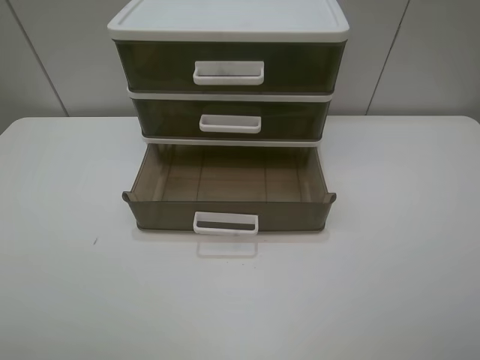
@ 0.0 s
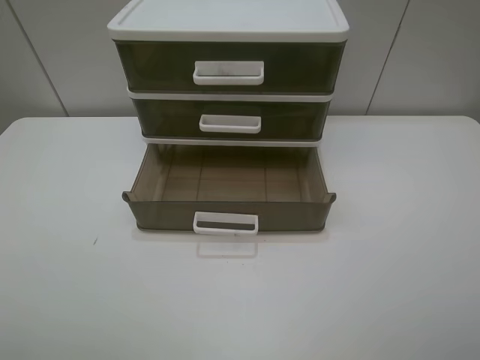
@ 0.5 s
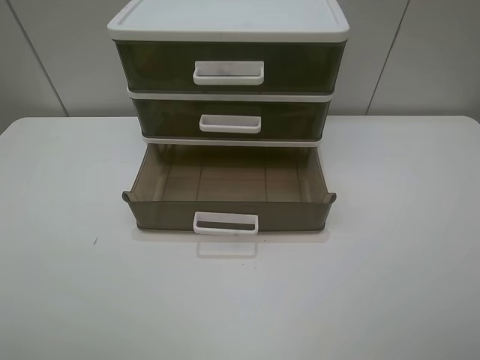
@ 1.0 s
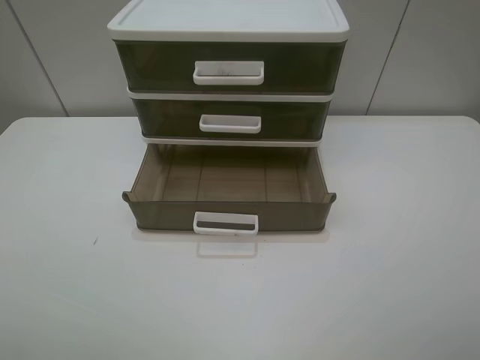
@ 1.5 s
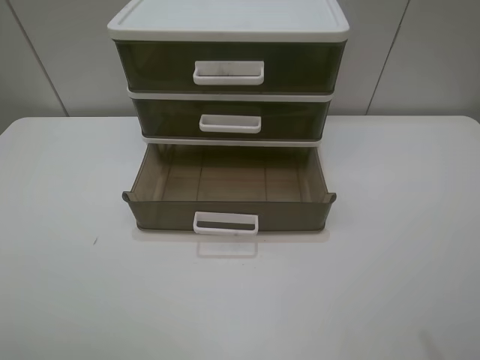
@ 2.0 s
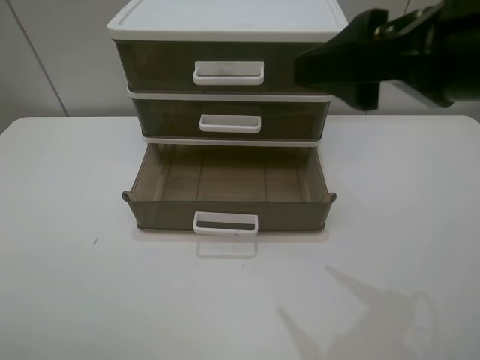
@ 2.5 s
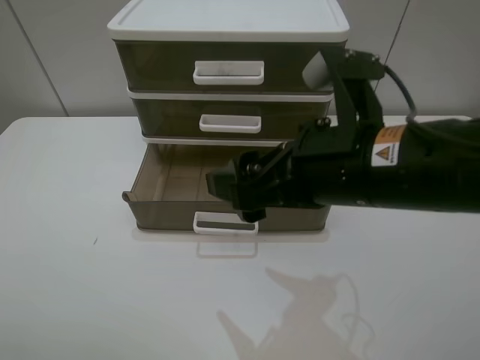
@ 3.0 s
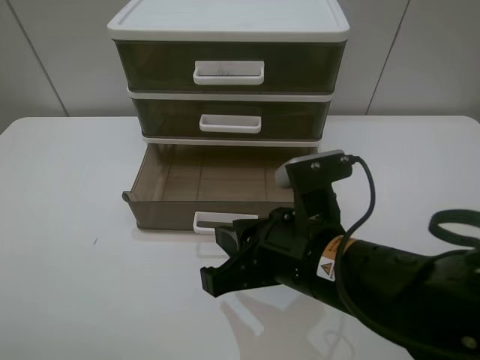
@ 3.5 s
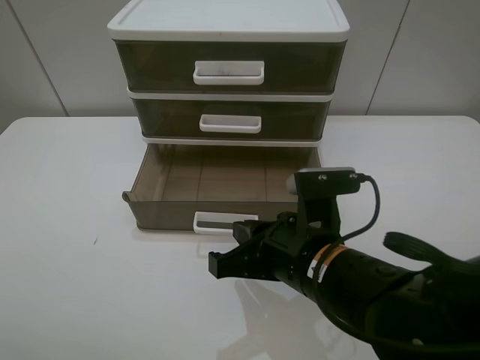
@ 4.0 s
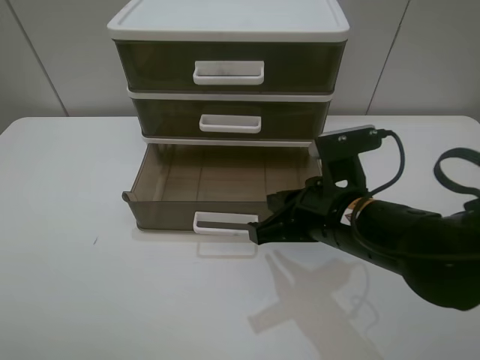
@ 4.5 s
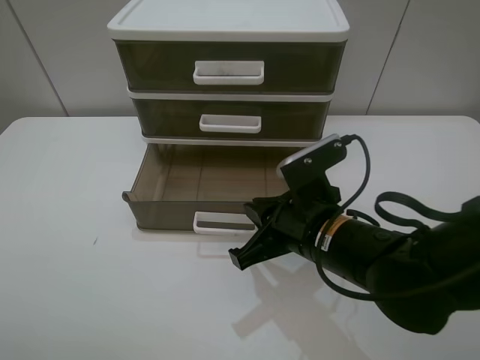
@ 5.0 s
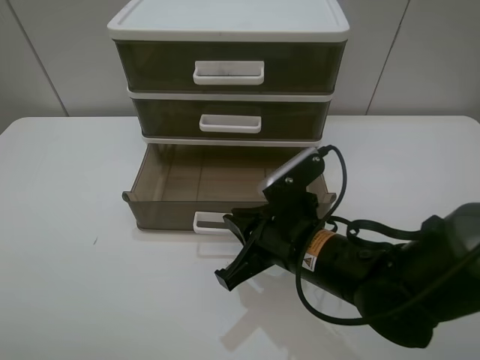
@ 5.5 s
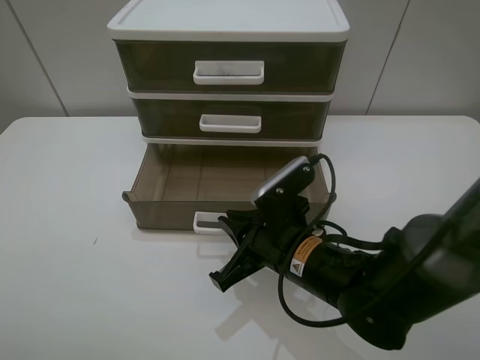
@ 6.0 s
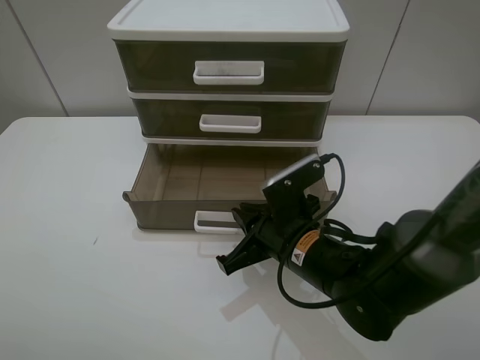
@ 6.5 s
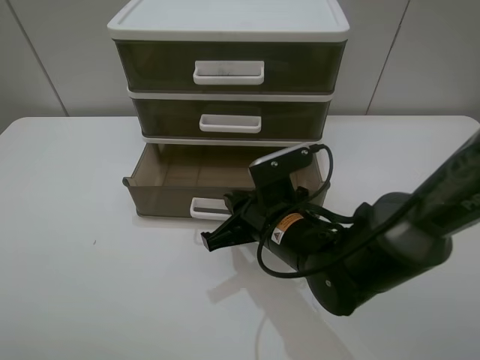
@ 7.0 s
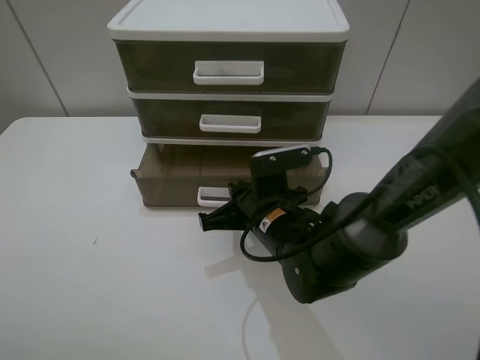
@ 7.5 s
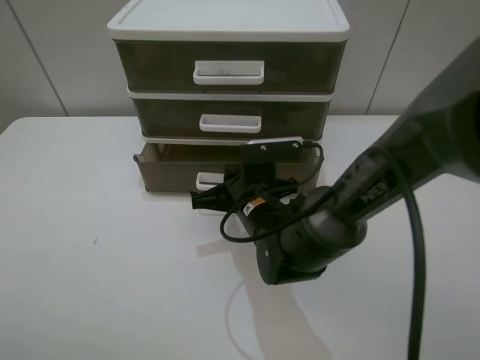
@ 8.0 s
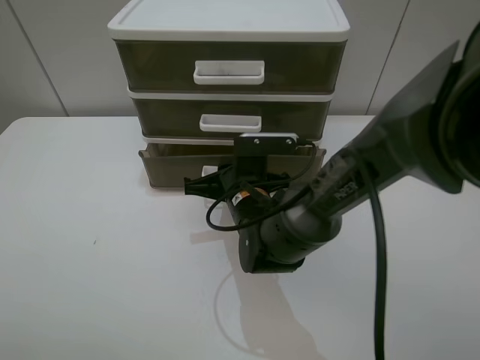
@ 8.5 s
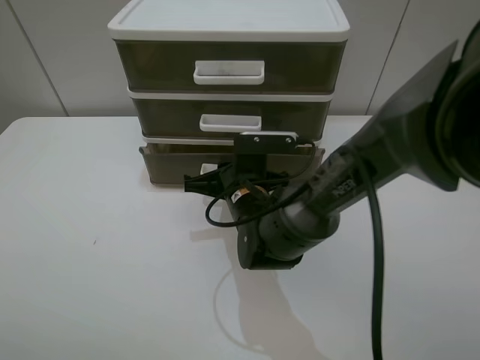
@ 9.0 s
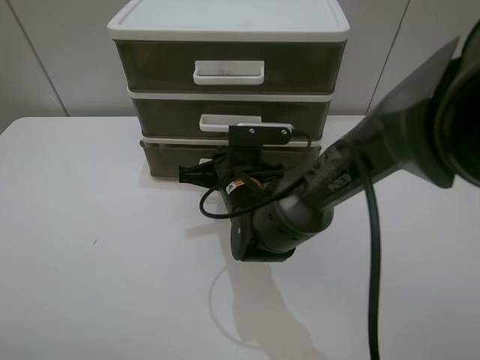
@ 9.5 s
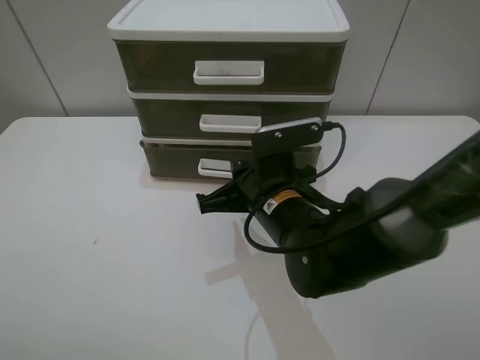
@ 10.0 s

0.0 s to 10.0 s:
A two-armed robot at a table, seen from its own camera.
Task of the whole recording: close the bottom drawer.
Step, 0.0 to 6.0 s: Use the right gripper to contact the bottom layer of the storage cabinet.
Step, 6.5 to 9.0 s: Push the bottom drawer closed.
2.0 to 4.0 s: The right gripper goes some 30 cm to the left and downward, and closes its fingers.
4.0 to 6.0 s: The right gripper ends up approximately 5 cm from where it was.
6.0 to 8.0 s: The right gripper heads forward, covering roughly 10 cm.
8.0 to 10.0 s: The right gripper changes place by approximately 5 cm.

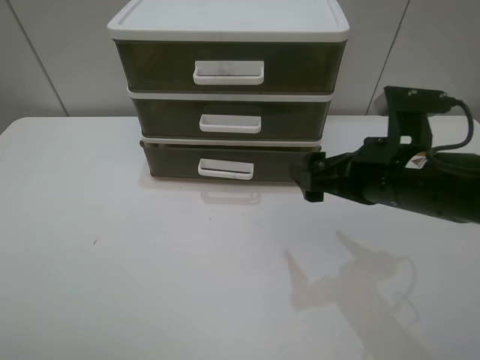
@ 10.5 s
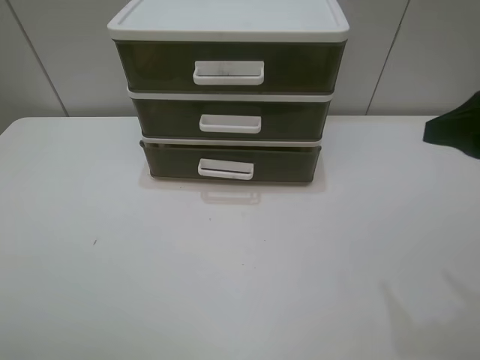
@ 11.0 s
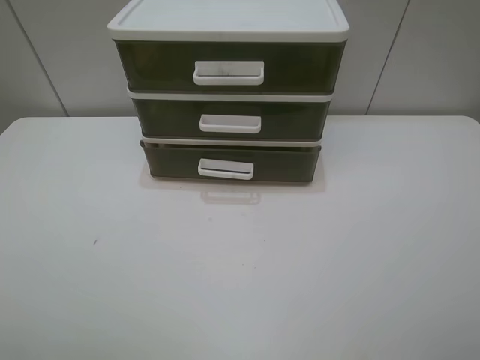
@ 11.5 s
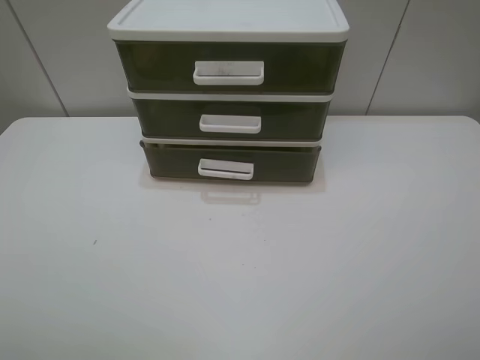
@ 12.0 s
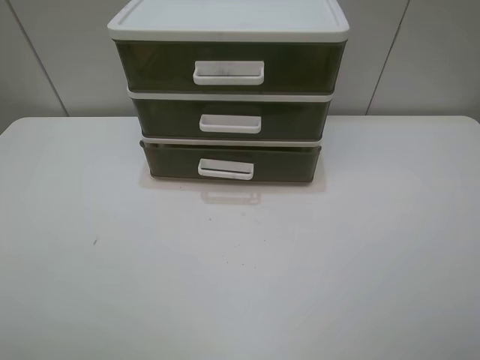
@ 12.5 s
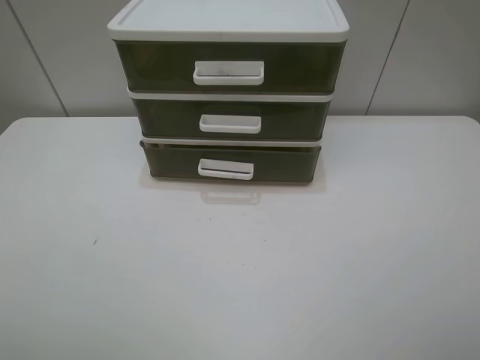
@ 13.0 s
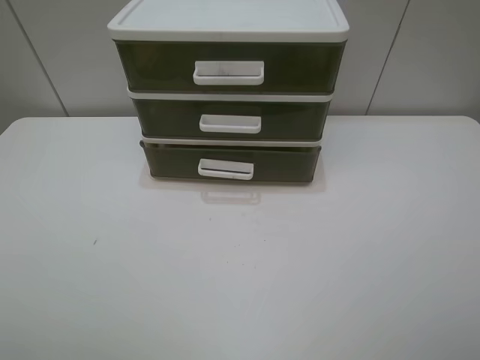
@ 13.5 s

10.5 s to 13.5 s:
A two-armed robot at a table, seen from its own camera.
Task of the whole recording: close the bottom drawer.
10.5 to 12.0 s: The right gripper travels backward, upward and to the right by about 30 cm.
